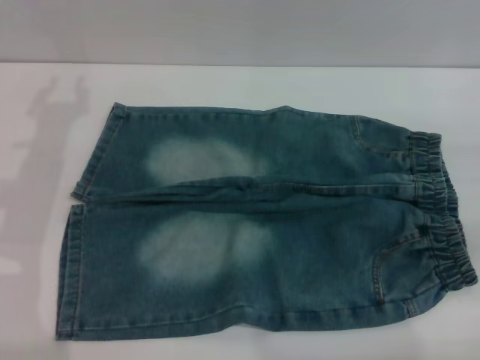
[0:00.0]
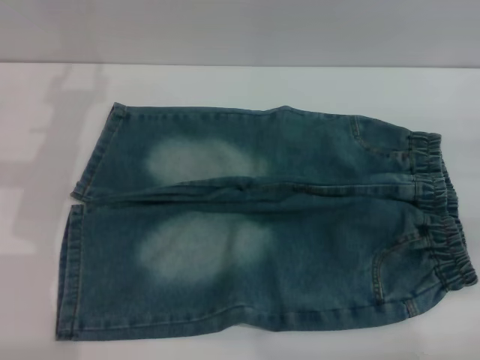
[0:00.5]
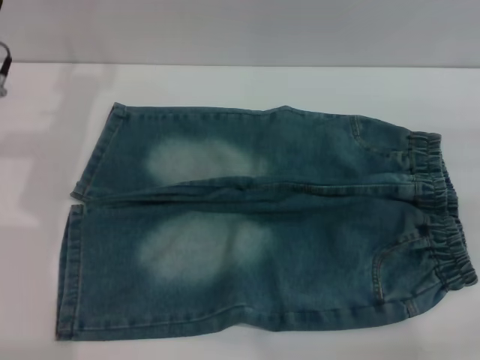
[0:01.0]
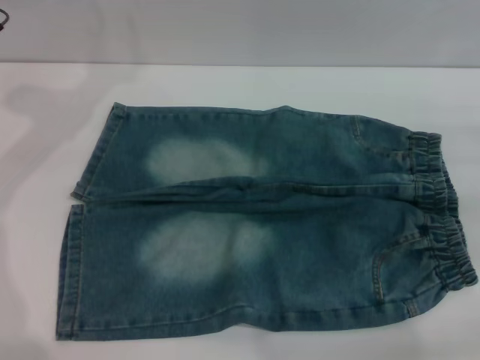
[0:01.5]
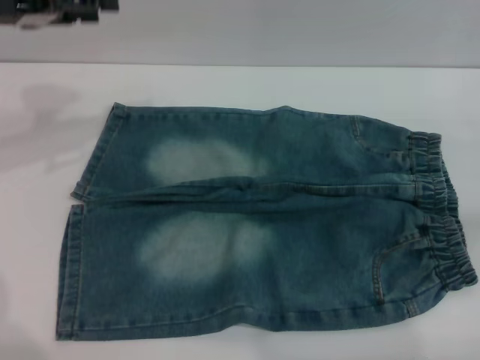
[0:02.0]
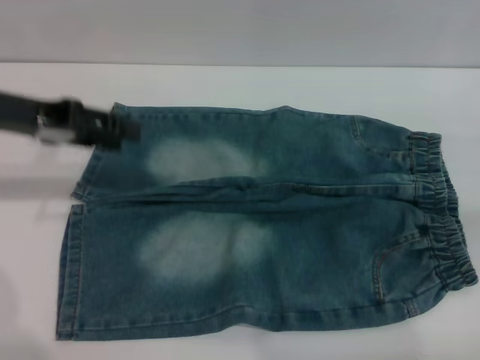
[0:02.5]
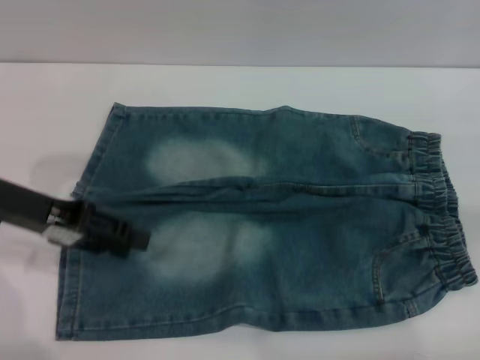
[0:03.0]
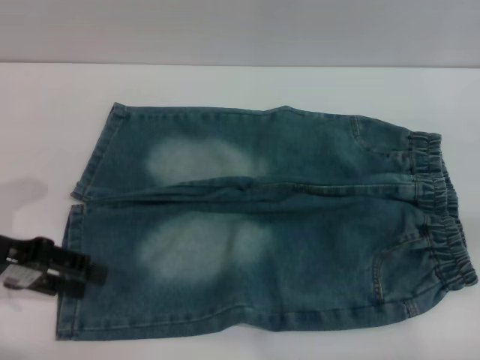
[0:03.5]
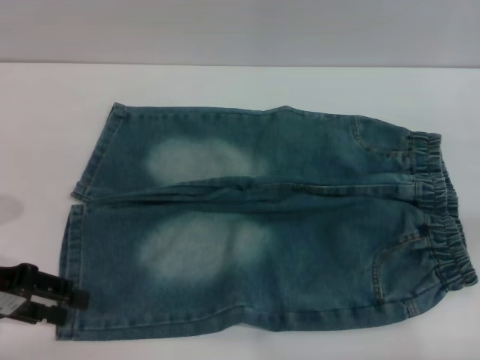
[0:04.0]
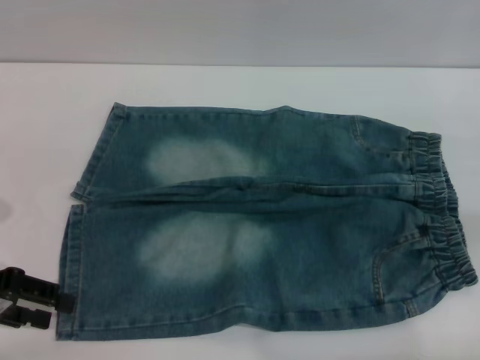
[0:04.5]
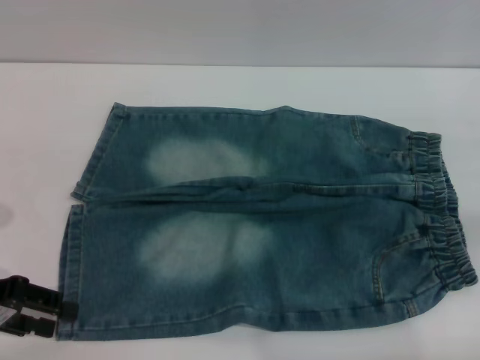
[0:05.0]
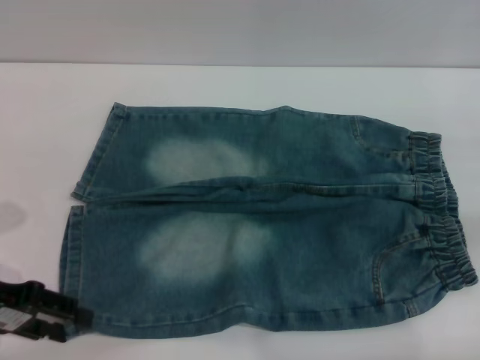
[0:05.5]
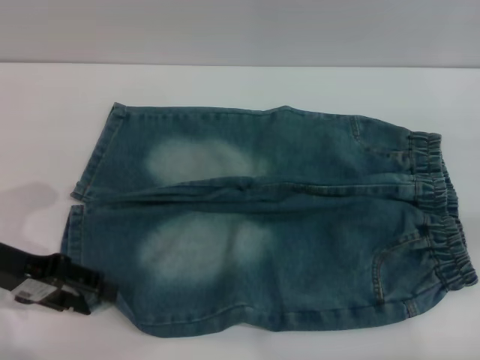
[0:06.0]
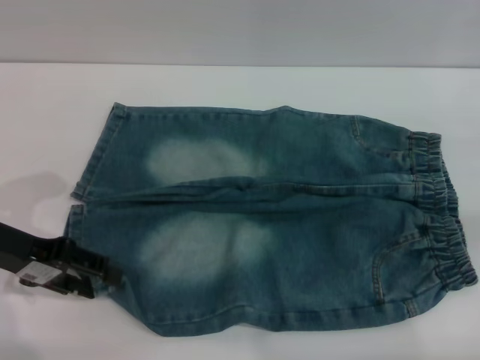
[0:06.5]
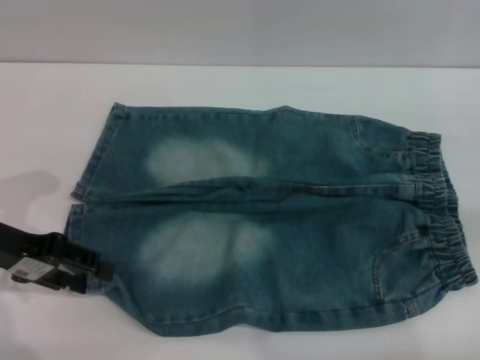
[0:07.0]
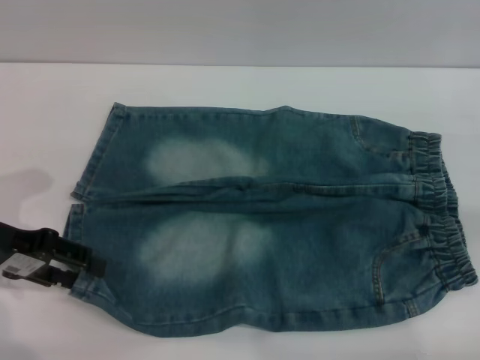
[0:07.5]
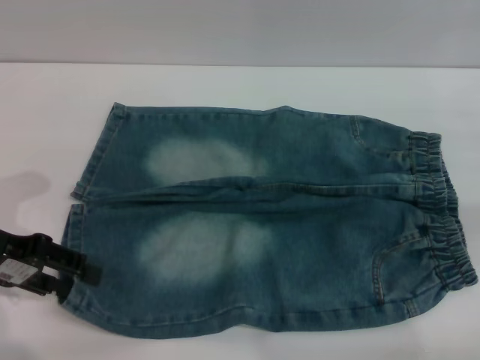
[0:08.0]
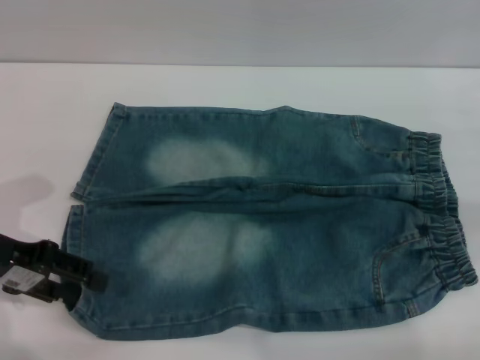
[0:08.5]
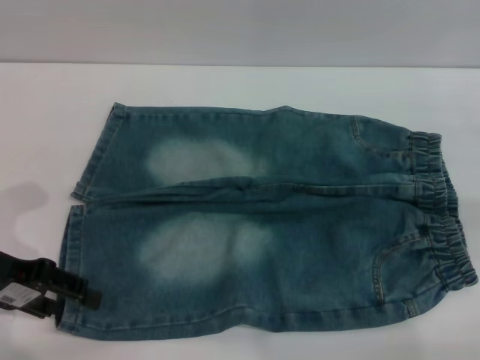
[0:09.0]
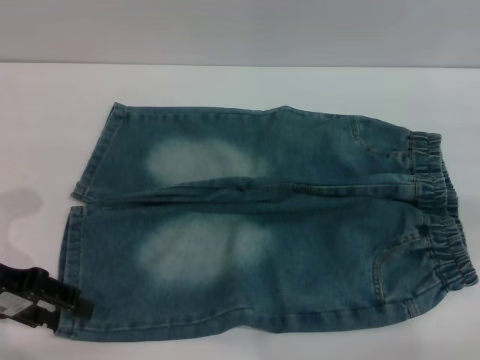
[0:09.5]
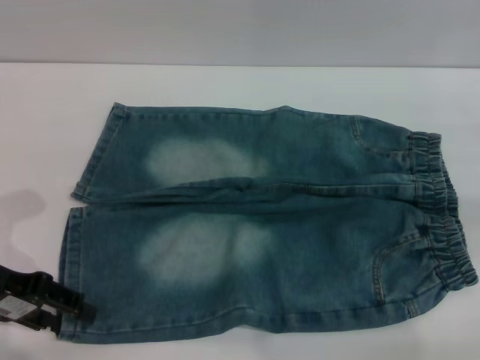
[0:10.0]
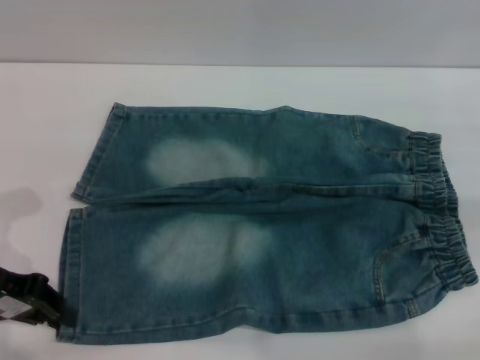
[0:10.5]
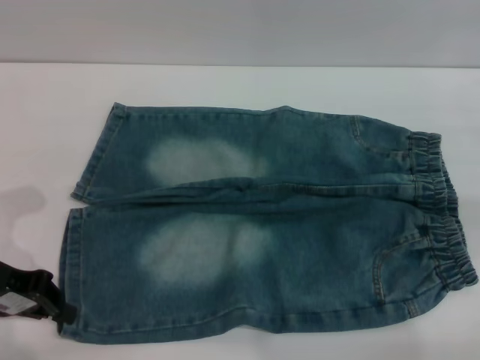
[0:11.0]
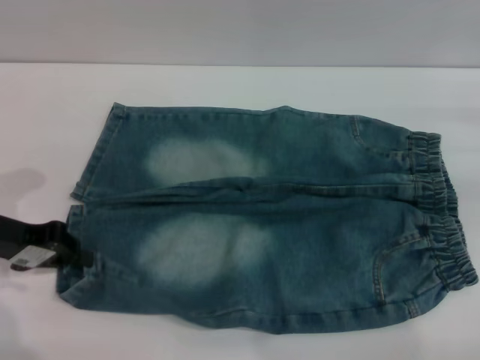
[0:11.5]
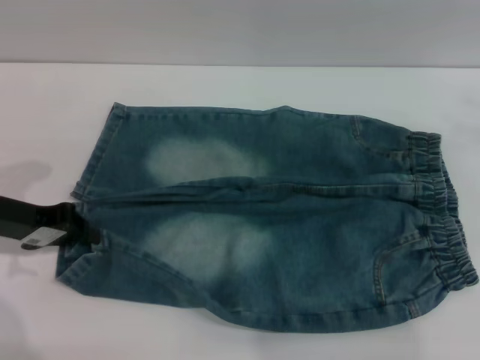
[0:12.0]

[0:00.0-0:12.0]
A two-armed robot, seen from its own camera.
0:00.0 to 0:02.0: The left gripper is displaced upward and forward by roughly 10 cm.
0:02.0 to 0:04.0: The left gripper moves backward and downward, roughly 20 cm.
0:04.0 to 0:10.0: The grippers stay close to where they were, moving slightly.
0:10.0 to 0:12.0: The right gripper goes some 10 cm upward; the left gripper closes its fingers.

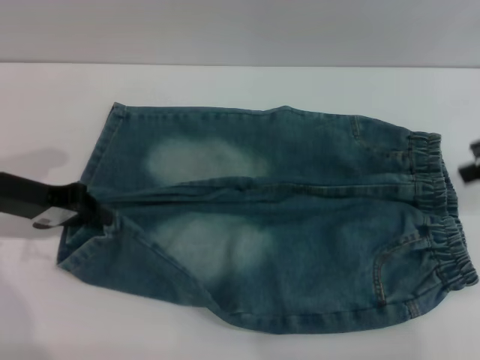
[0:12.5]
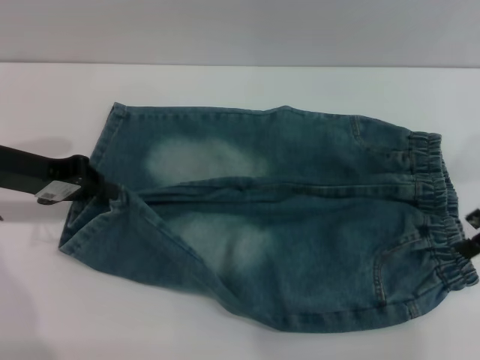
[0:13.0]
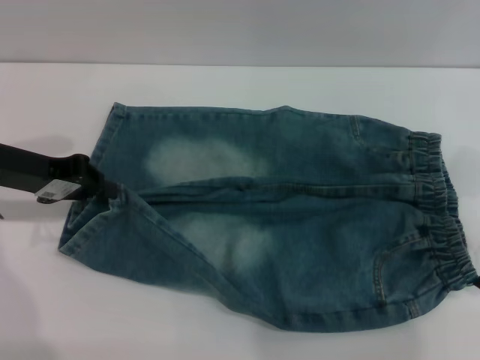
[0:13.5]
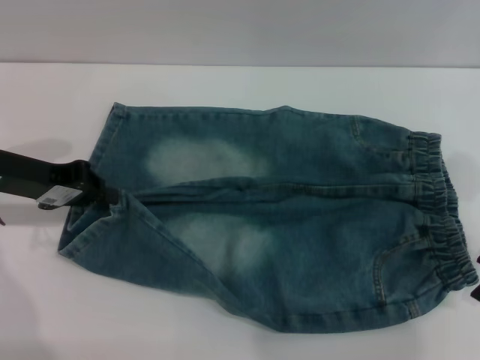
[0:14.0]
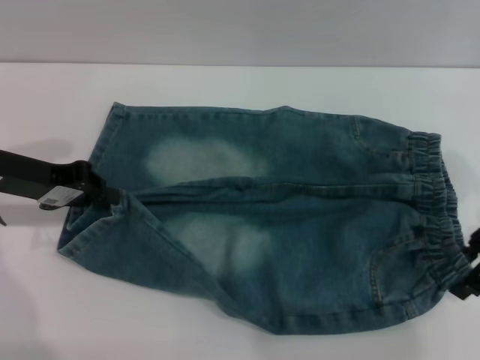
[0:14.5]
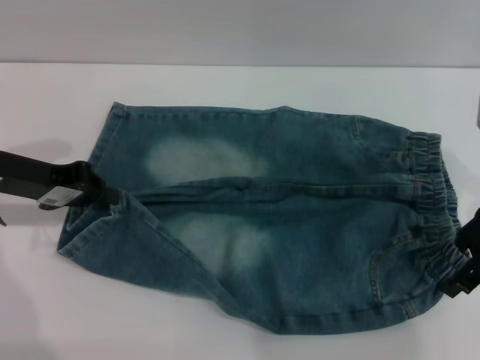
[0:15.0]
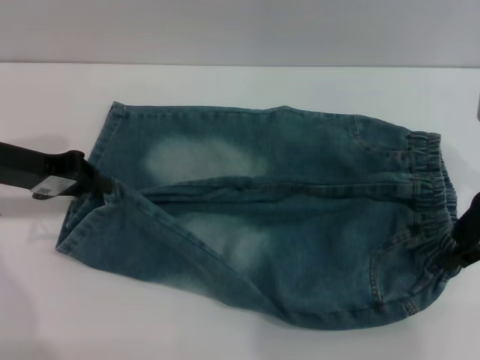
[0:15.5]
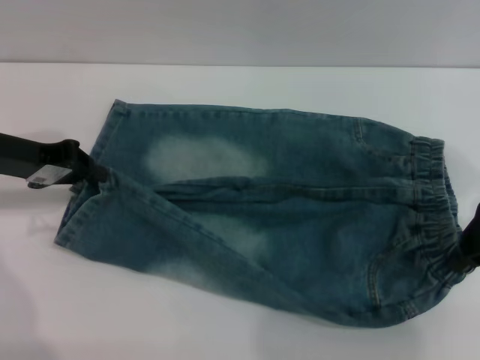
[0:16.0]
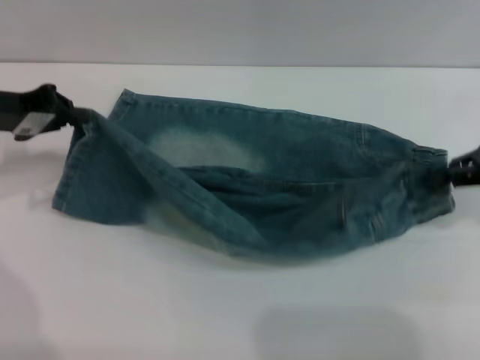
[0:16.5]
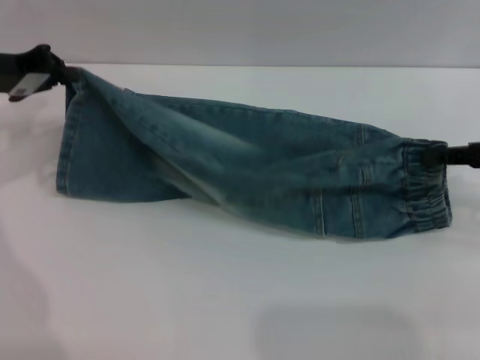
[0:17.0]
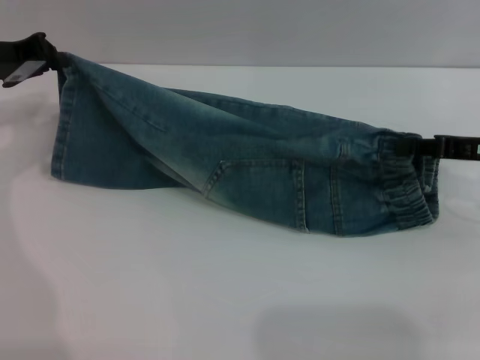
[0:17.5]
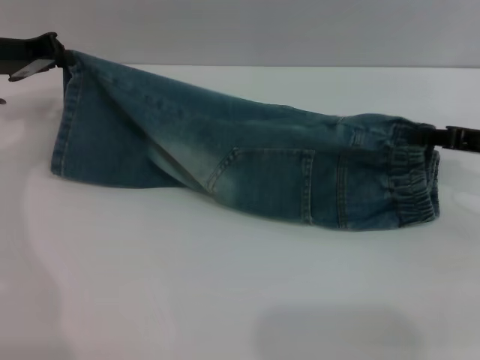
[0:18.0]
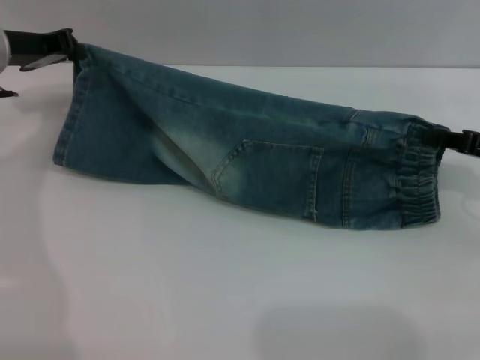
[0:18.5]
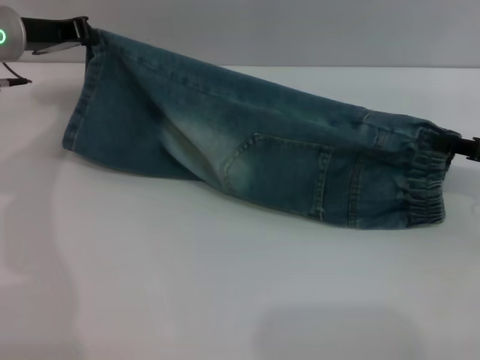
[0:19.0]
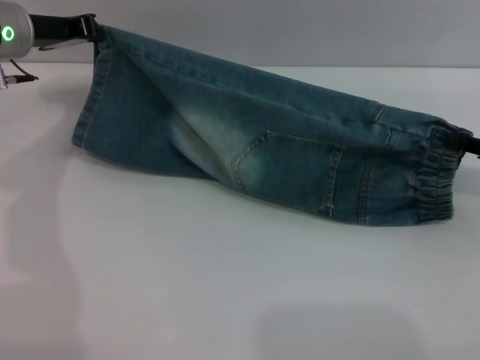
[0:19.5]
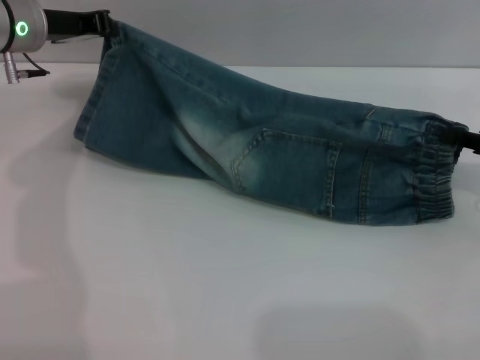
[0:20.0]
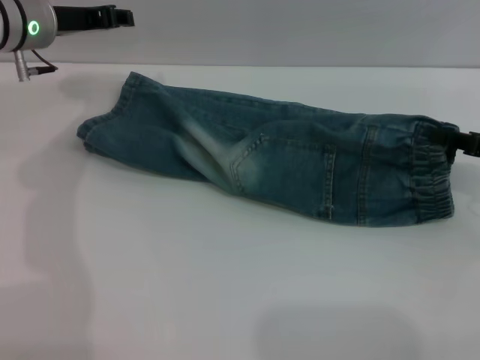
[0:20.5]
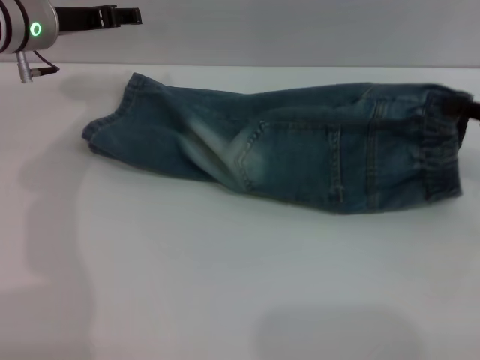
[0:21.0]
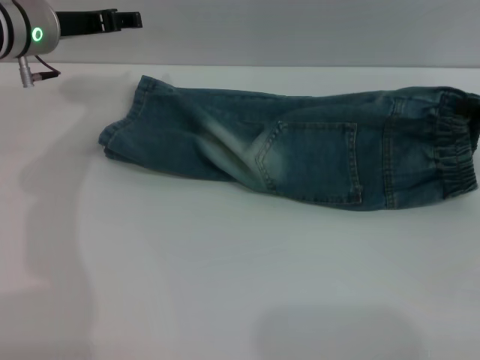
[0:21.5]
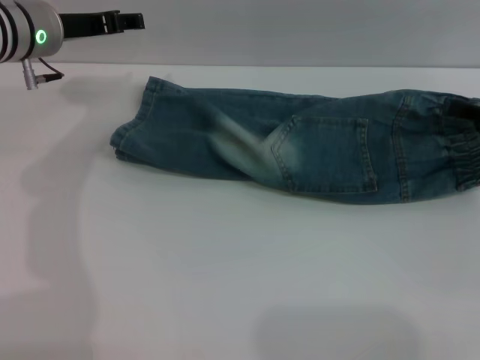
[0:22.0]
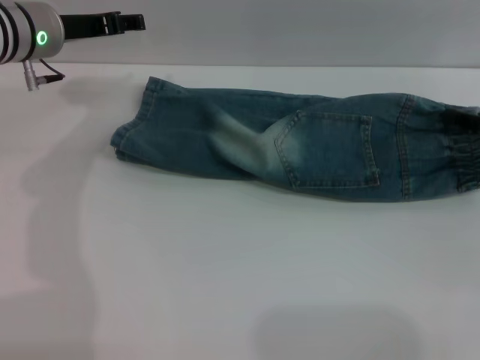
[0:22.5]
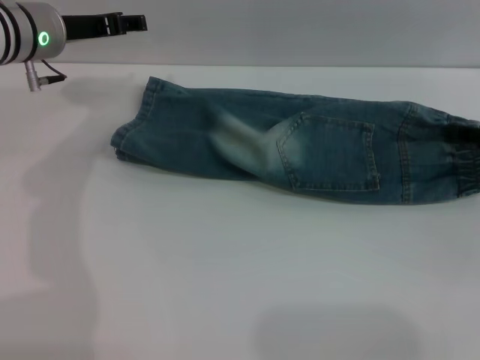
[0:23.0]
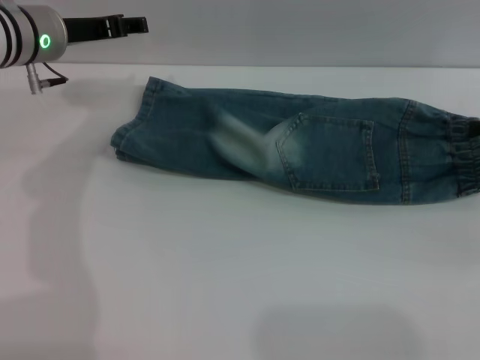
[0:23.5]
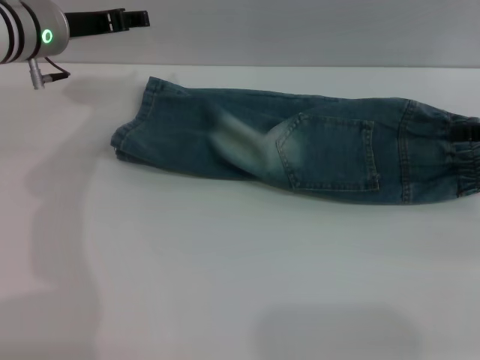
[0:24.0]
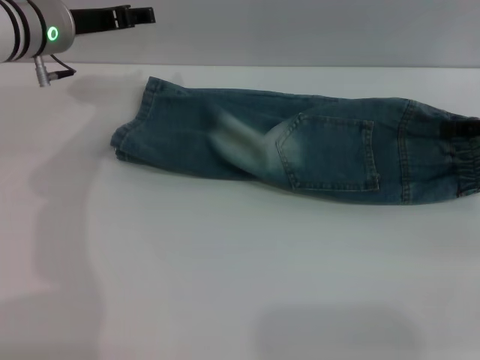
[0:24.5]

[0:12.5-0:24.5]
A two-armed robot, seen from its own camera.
Step, 0:12.5 to 0:23.5: Fold the bottom of the pants upward with both grippers.
0:12.5 to 0:14.5: The right gripper goes about 10 cm downward and to the left.
0:14.5 to 0:16.5: The right gripper moves about 5 cm, and closes.
0:16.5 to 0:18.5: The left gripper heads forward, covering roughly 5 cm. Meanwhile the right gripper shifts some 10 cm downward.
0:18.5 to 0:20.5: The left gripper changes place by approximately 5 cm.
0:20.5 to 0:22.5: The right gripper opens; the left gripper opens up.

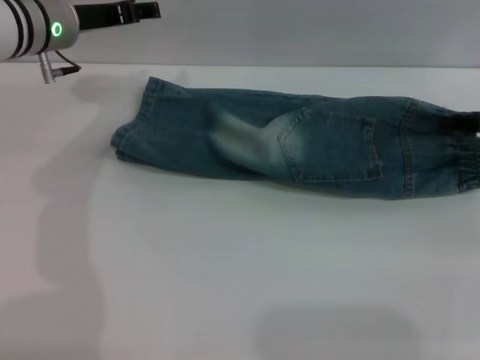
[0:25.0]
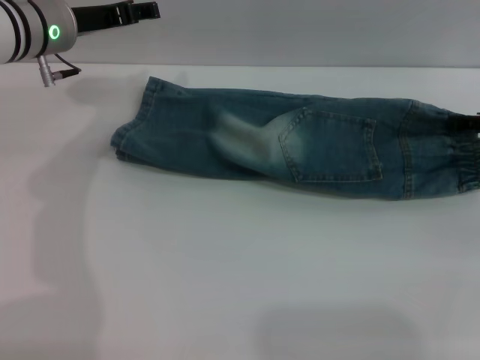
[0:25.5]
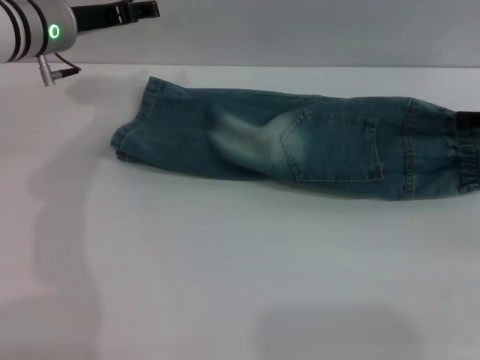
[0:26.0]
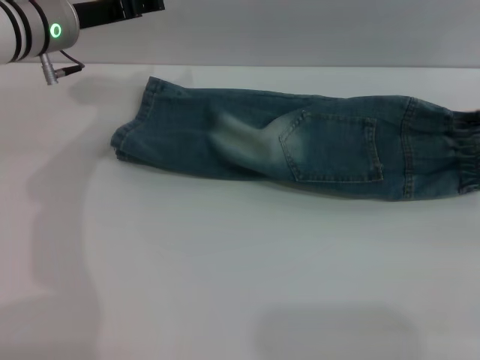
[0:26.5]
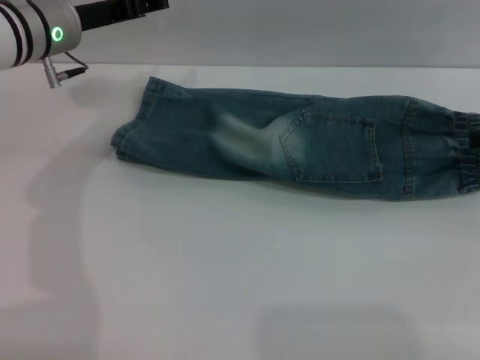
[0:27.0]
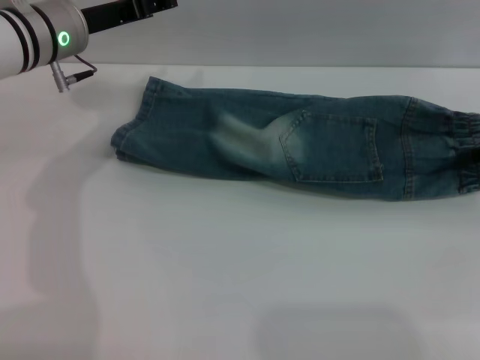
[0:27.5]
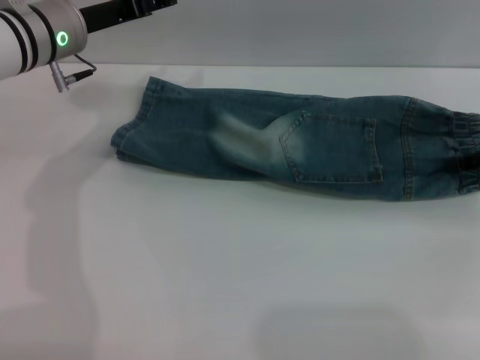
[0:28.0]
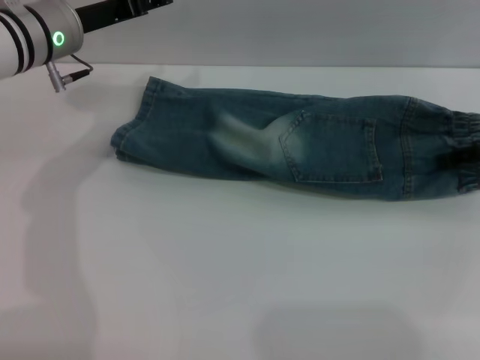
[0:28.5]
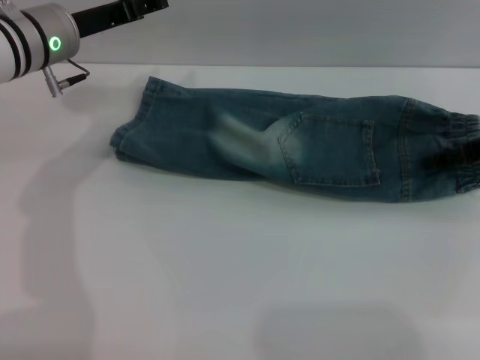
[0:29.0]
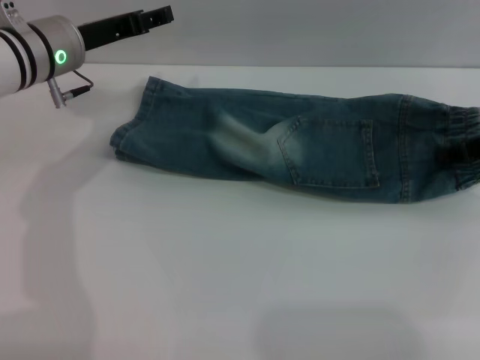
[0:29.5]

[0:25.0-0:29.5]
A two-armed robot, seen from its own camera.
0:25.0 to 0:27.0: The right gripper changes place by about 5 cm.
0:27.0 to 0:29.5: The right gripper is displaced to the left by approximately 5 cm, and closes.
